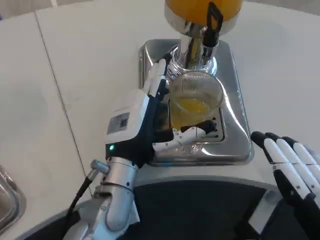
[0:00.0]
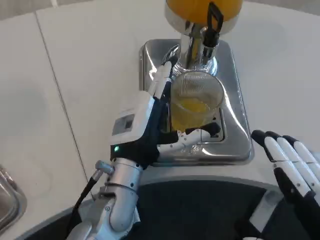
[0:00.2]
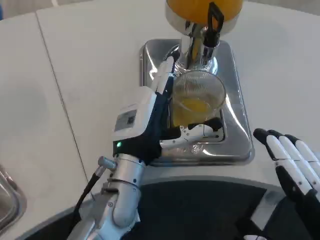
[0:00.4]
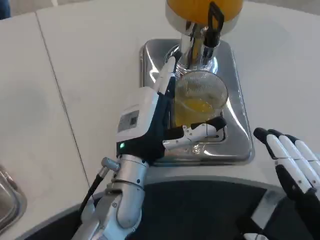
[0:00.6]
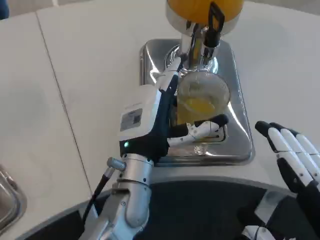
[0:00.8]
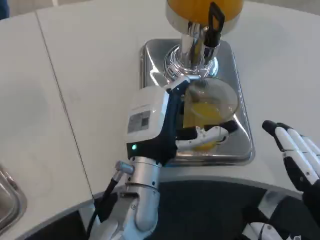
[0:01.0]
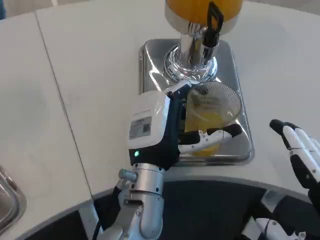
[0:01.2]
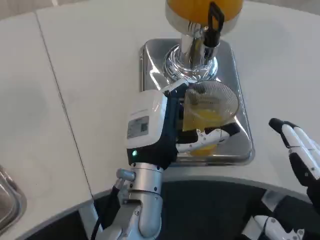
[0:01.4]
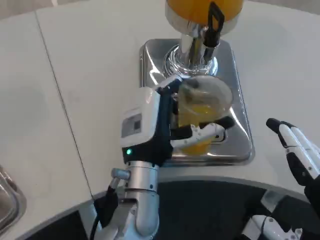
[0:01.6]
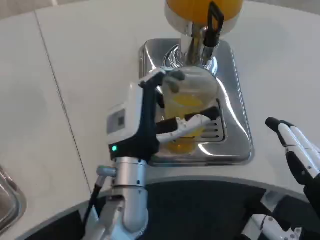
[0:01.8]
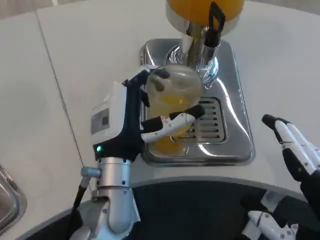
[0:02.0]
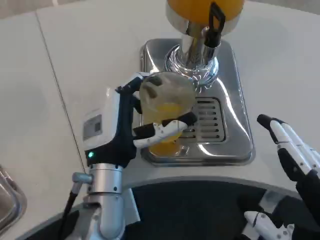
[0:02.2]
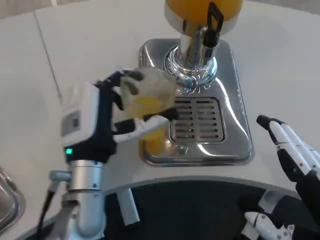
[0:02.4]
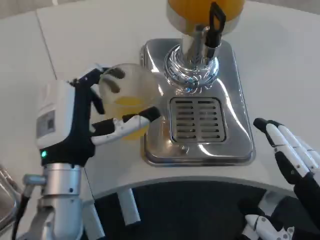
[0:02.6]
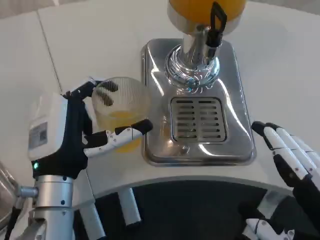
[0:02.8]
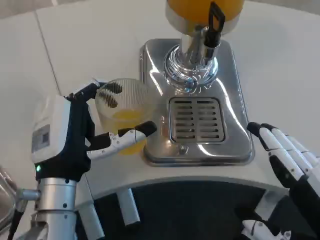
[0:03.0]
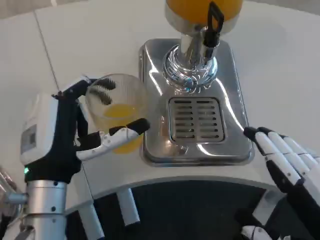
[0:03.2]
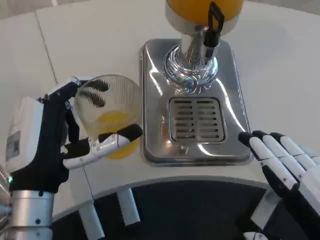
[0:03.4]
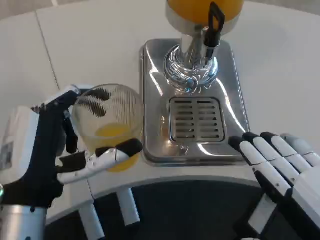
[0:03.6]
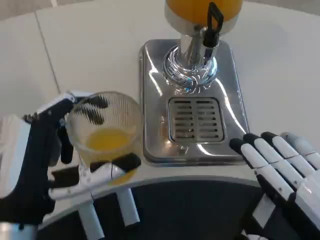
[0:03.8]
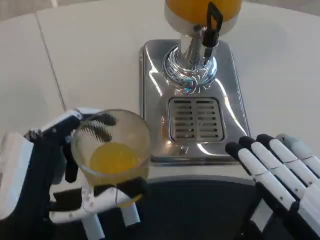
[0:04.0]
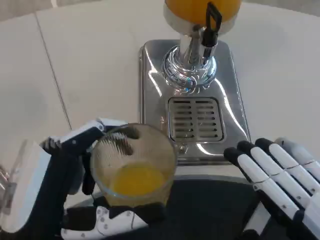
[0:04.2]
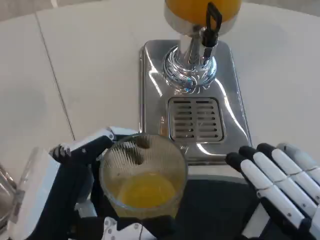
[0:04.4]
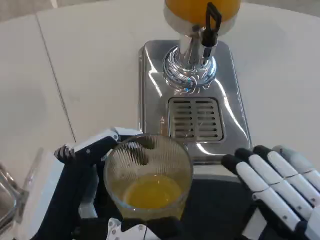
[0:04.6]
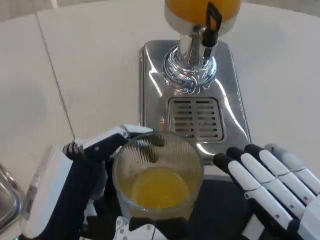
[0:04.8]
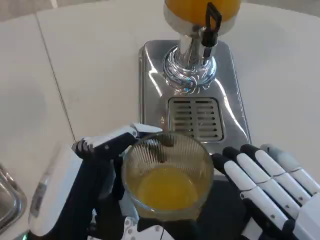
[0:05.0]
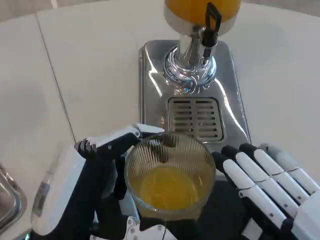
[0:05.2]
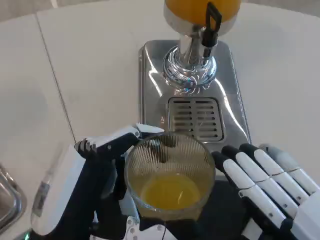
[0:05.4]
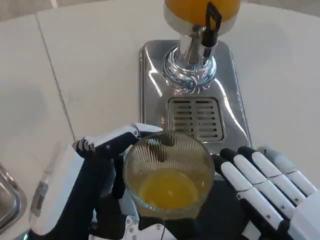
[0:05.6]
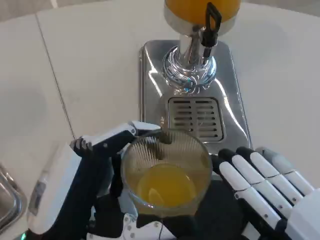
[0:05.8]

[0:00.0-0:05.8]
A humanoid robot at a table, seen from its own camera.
Task of the whole recording: Grasp the cup under the faucet to collect the drink, then remove the cup.
0:01.4 to 0:02.8: The left hand is displaced to the left by about 10 cm.
0:02.8 to 0:04.4: The left hand travels backward by about 15 cm.
0:04.4 to 0:05.8: There are only small adjustments of the hands.
